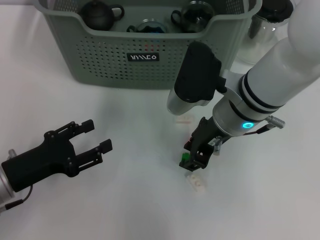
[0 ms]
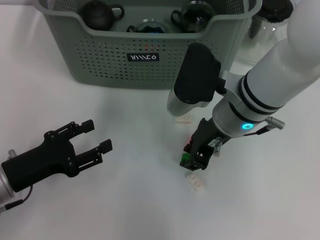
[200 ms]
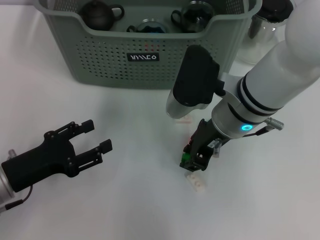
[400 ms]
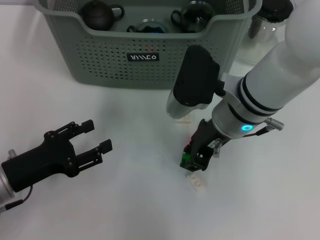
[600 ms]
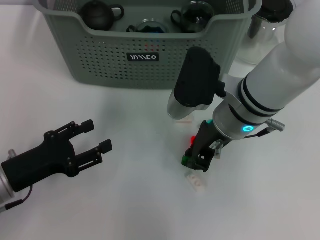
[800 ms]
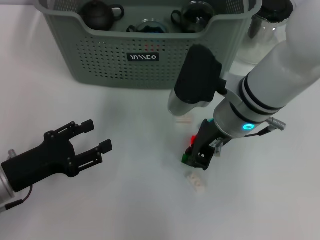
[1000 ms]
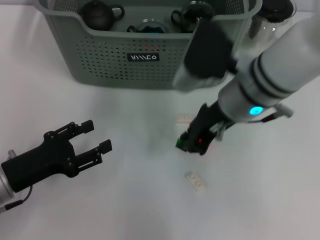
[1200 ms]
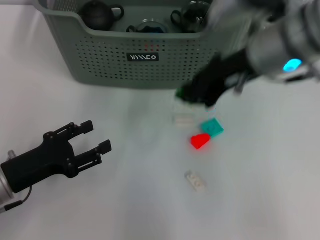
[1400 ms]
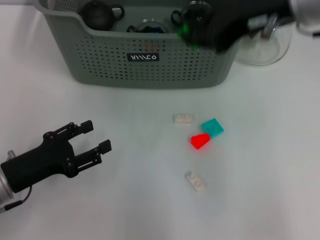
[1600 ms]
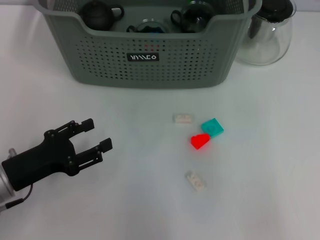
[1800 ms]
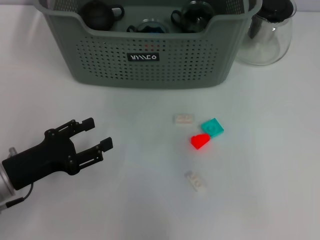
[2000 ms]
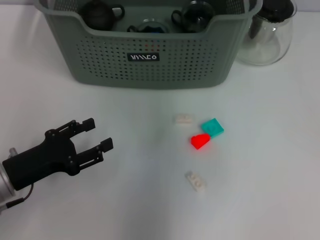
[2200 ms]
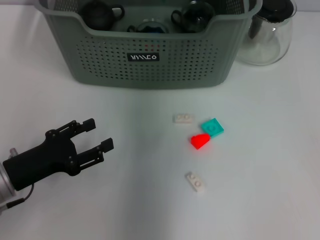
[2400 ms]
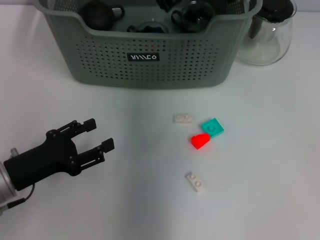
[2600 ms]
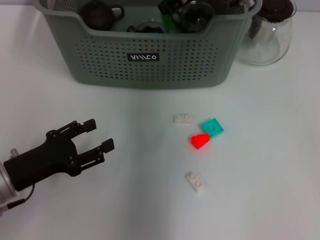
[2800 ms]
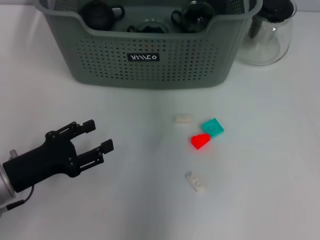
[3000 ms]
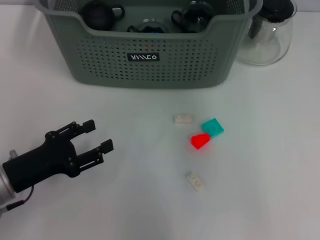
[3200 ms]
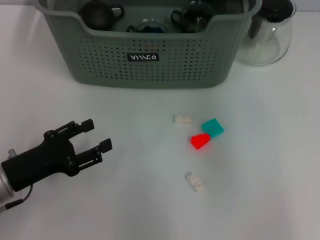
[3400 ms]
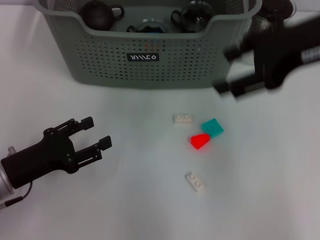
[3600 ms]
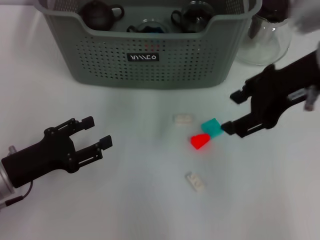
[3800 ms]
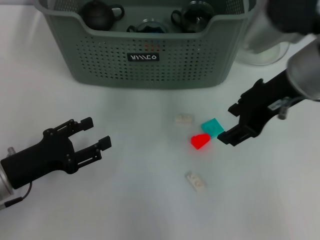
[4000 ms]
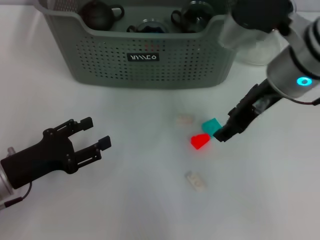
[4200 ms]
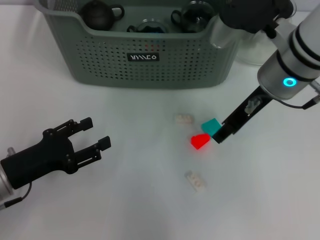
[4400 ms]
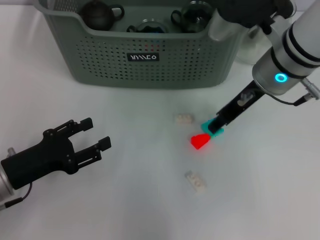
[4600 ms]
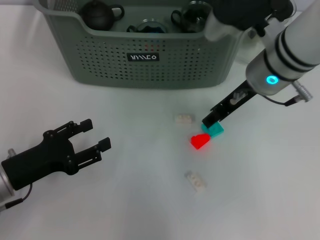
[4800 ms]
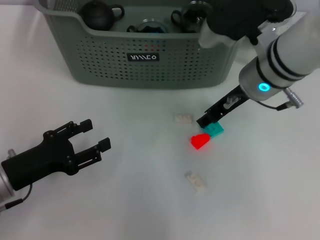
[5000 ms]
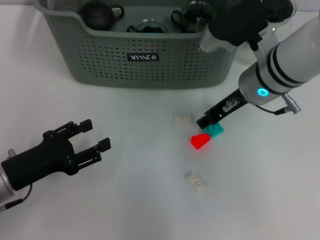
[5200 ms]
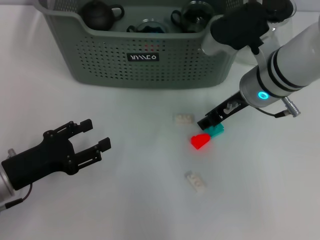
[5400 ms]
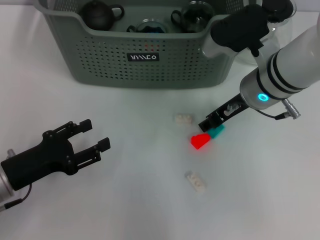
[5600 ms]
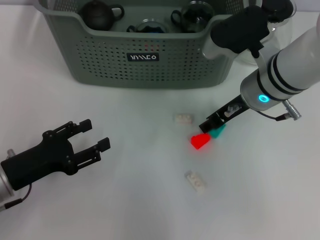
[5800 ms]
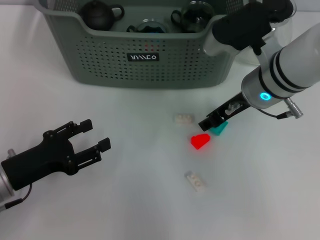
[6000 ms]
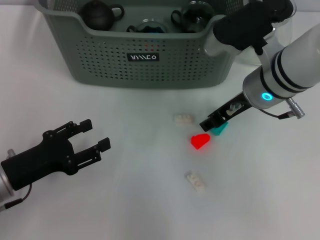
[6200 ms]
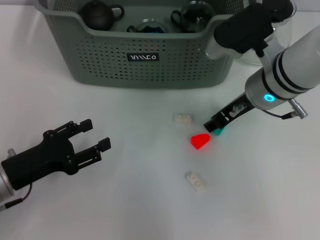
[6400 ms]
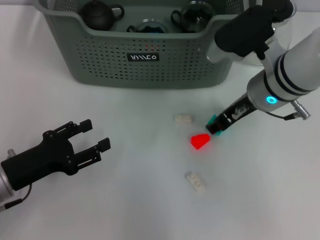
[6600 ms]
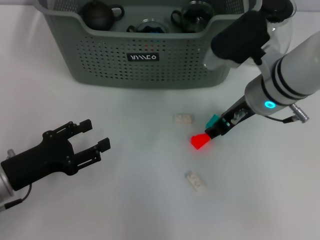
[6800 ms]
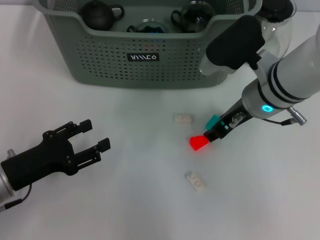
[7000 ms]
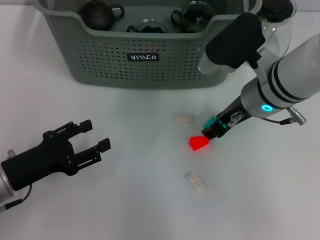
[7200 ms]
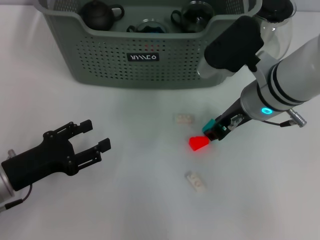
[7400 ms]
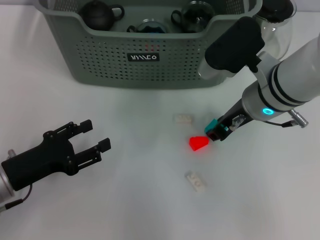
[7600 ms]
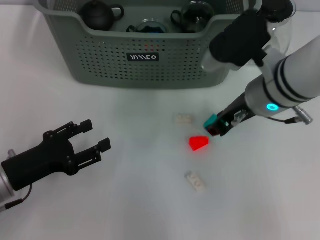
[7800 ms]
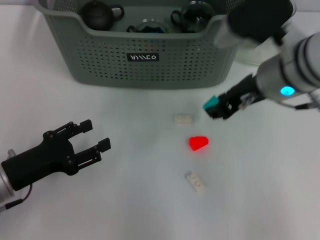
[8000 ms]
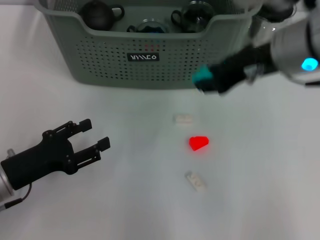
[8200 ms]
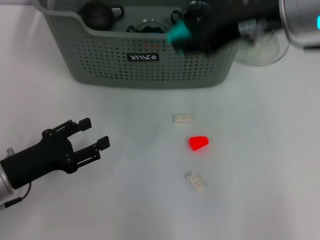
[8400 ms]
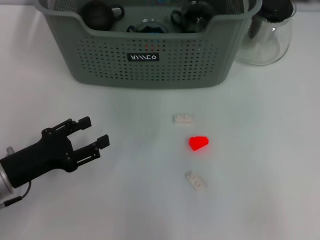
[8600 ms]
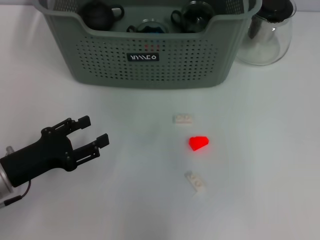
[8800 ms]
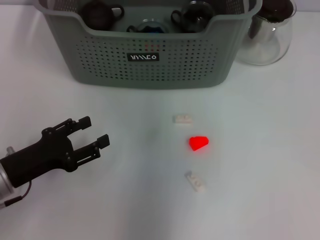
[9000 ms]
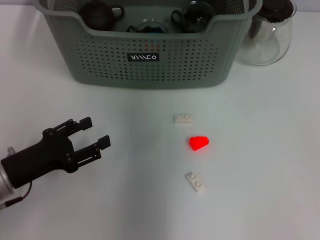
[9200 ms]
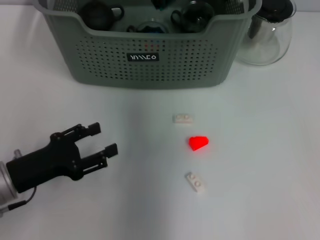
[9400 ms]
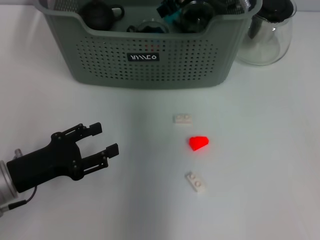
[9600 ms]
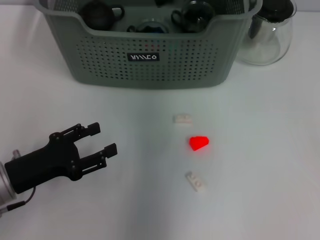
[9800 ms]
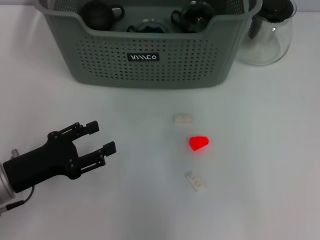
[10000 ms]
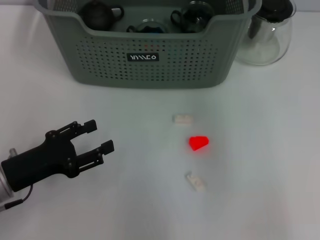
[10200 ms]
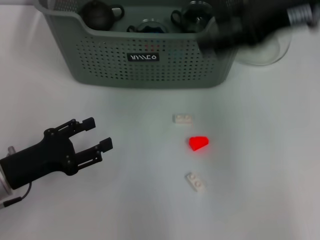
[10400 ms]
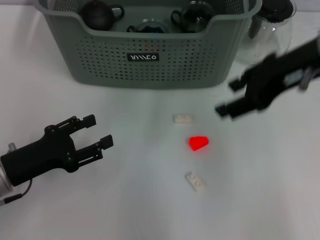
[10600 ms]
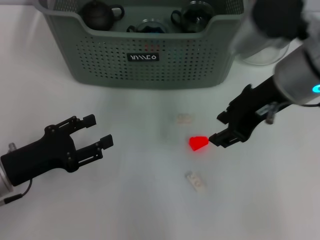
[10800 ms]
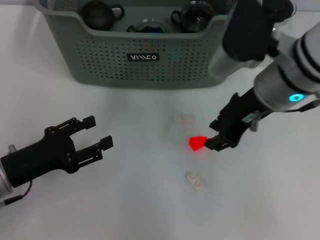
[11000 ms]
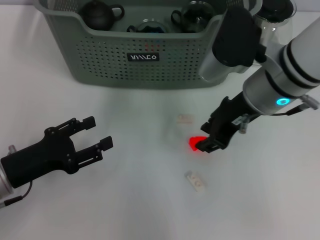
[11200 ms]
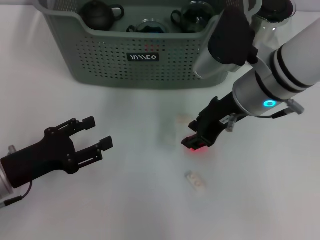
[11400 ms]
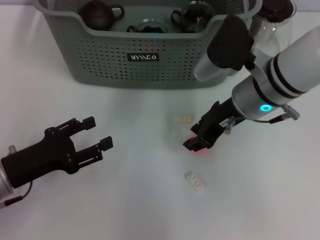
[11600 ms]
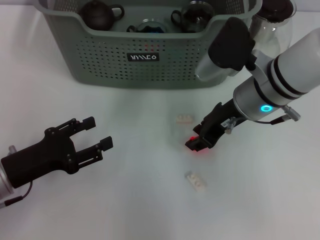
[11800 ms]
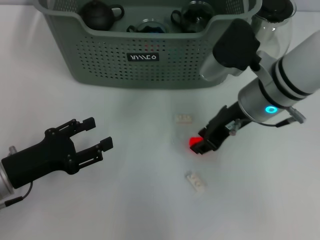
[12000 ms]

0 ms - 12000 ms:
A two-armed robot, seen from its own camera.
Task of the whole recording: pick up the teacup on the table and place it into the storage bin, pick up the block on the table and place it into the storage bin.
Step, 1200 ms - 3400 ms: Place the green block in the storage box with right gripper.
Step, 3600 ms - 7400 ms: Grasp the light blue block with right gripper.
Step, 7600 ms - 9800 ms: Place the light blue block in the storage box with right gripper.
0 ms - 1600 ms: The right gripper travels upward by some 15 cm.
1600 ms - 3000 ms: The right gripper is displaced forward and to the left by approximately 15 cm.
3000 ms - 4400 ms: The right gripper is displaced backward, downward and to the right by approximately 15 cm, and opens its fingers.
4400 ms - 7600 ms: The grippers make only small movements.
7600 ms - 9000 ms: The right gripper goes approximately 20 cm upward, forward and to the left.
9000 ms - 10400 ms: The right gripper heads to the right and backward, covering about 20 cm, and opens up.
10400 ms - 12000 ms: The right gripper moves downward, roughly 15 cm, and closes up.

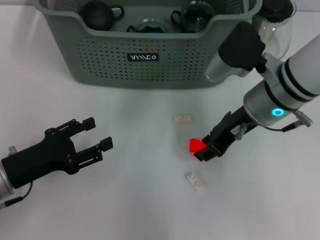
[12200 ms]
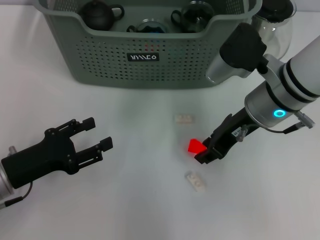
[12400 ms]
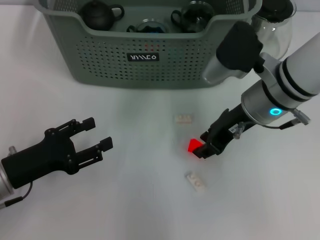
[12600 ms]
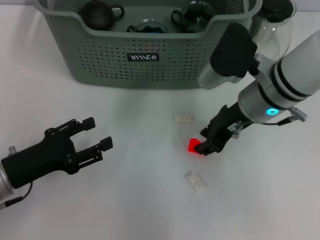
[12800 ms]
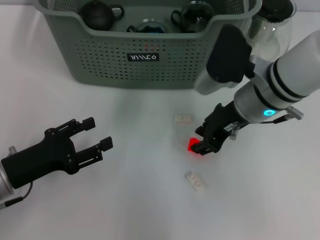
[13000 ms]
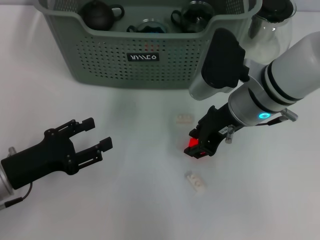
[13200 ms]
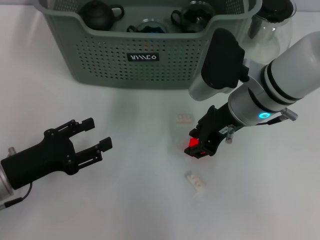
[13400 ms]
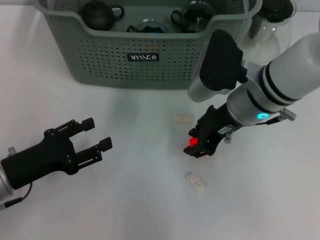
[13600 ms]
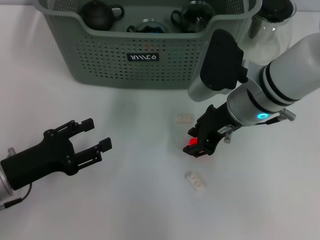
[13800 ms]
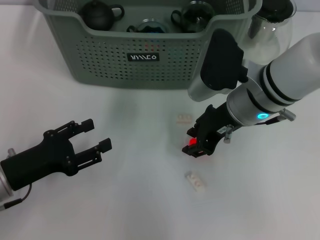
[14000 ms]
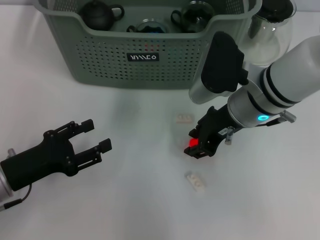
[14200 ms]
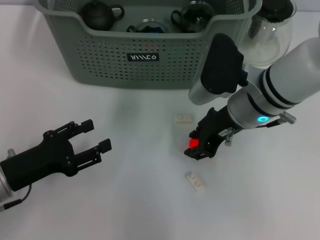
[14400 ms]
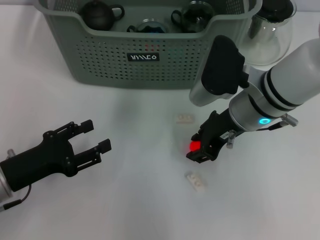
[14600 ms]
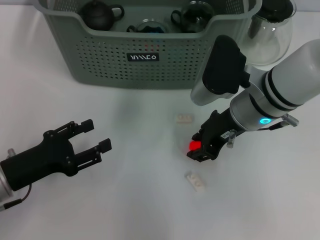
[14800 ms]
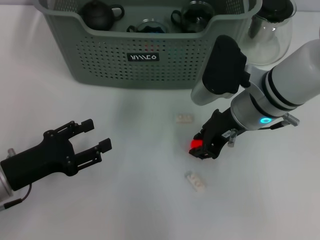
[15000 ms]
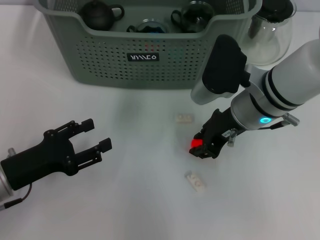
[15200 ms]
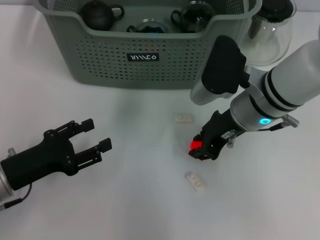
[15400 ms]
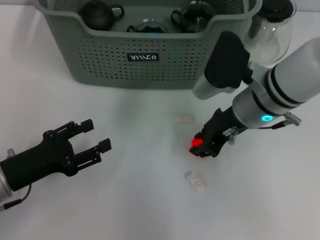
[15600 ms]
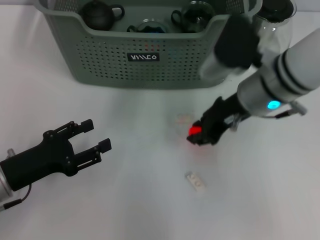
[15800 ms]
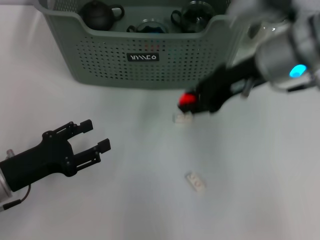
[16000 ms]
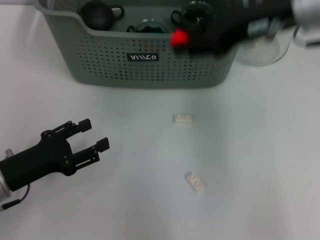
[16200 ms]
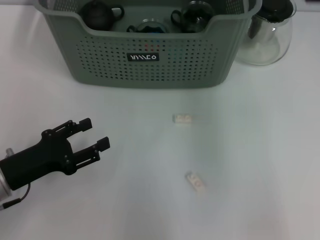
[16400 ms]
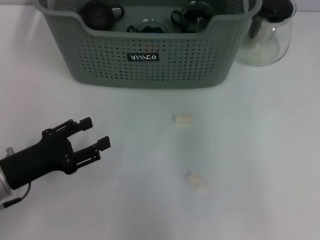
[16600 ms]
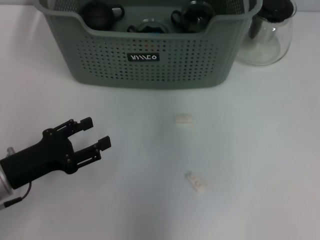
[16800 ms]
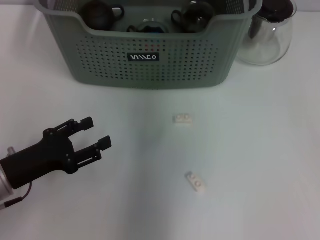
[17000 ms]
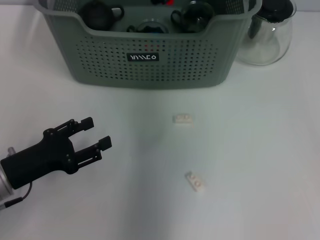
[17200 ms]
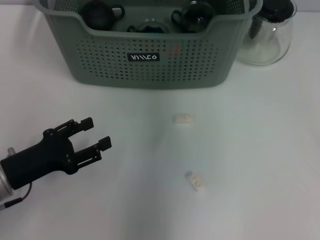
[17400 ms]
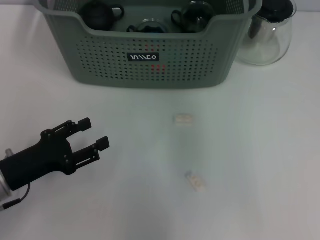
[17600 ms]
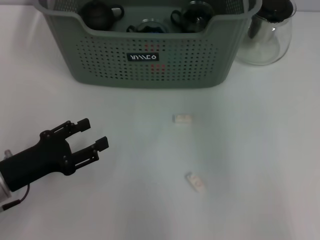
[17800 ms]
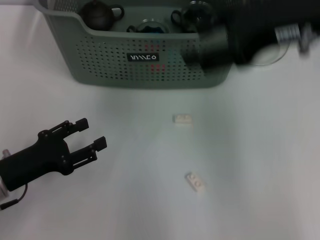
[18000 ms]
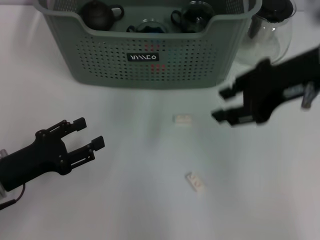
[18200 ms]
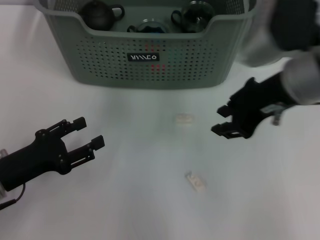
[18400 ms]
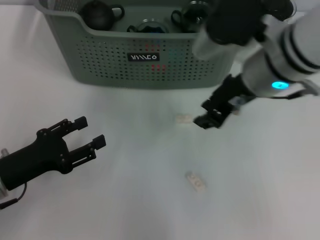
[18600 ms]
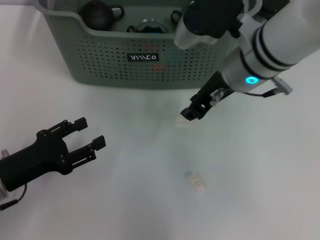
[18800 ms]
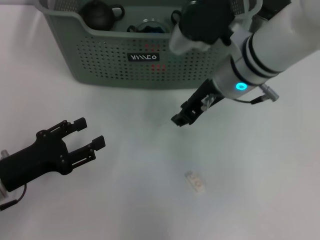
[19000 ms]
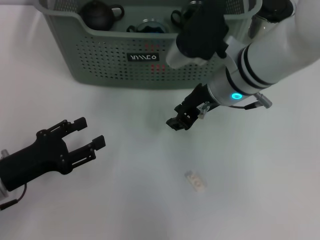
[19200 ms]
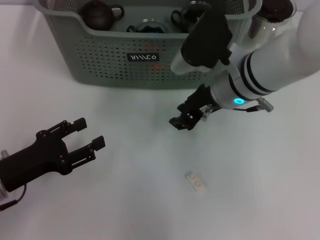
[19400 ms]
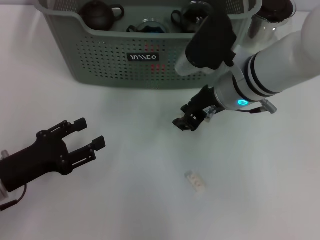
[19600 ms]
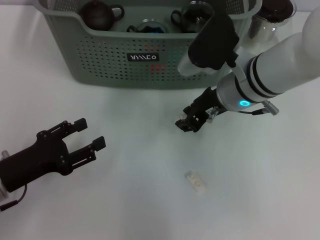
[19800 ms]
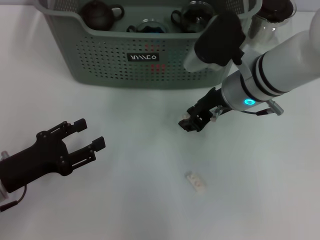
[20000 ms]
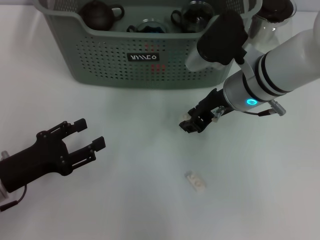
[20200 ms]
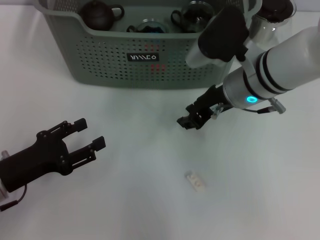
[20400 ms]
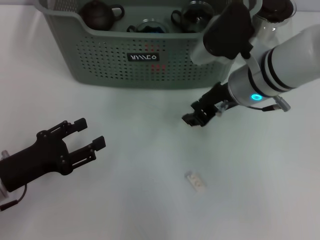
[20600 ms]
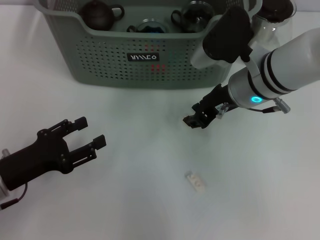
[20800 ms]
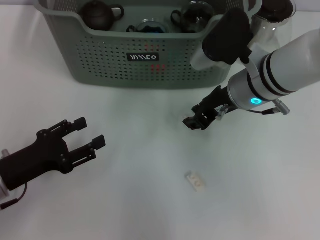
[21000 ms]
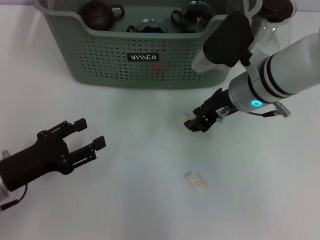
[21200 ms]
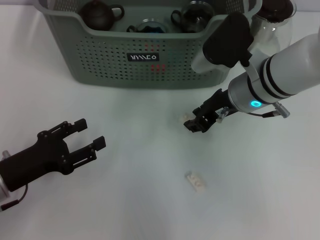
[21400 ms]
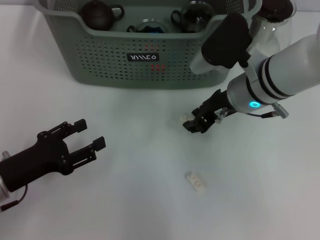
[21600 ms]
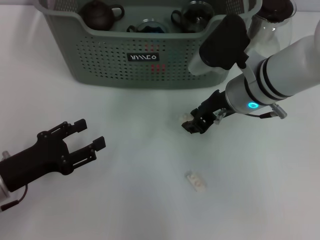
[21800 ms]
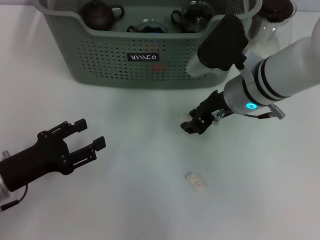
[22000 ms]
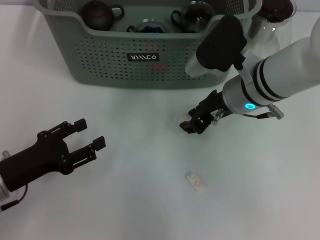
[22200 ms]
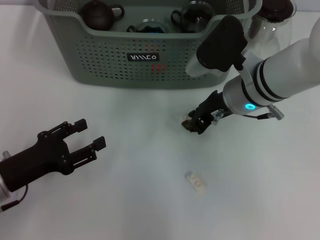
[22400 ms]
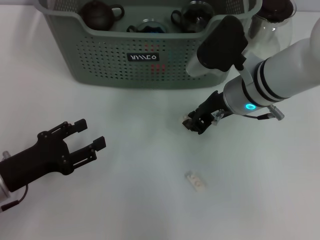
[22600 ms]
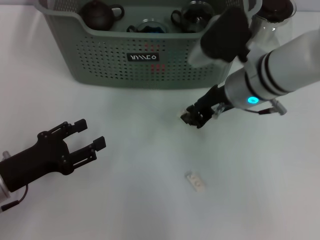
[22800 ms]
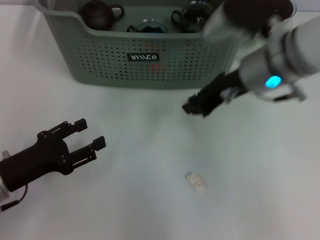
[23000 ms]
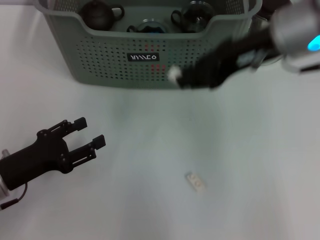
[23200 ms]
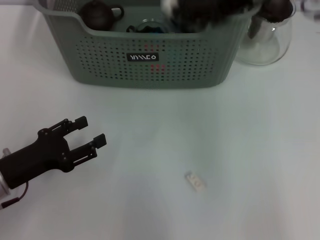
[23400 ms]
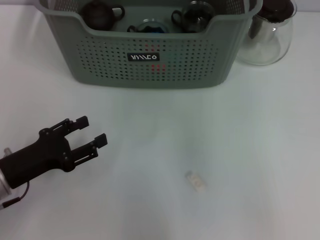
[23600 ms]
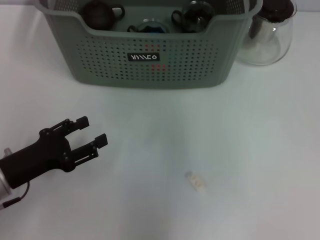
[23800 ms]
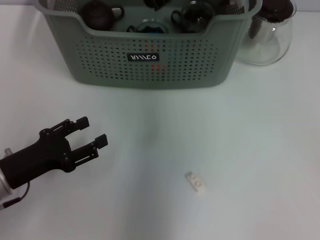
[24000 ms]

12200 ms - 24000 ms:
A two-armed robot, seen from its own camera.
Task of the whole recording: pick up the teacup on the table and place it into the storage bin, pick up the block on the table and place it into the storage bin.
Step, 12200 ms - 15400 ms: Grasp the orange block with right gripper.
Step, 15600 ms - 17400 ms: Place the orange block in the storage box with right gripper.
Step, 17600 ms - 22400 ms: Grasp the white block with right gripper.
12200 ms - 13600 ms: The grippers make only small movements.
13600 ms - 15200 ms: Neither gripper changes place.
15200 ms - 16600 ms: The right gripper travels upward by some 15 cm.
16600 ms - 18200 ms: The right gripper travels backward and to the right by approximately 10 cm, and opens its fingers.
18200 ms - 19600 ms: The right gripper travels downward, to the left and forward by approximately 15 cm.
19600 ms - 21000 ms: The grippers make only small movements.
21000 ms - 22600 ms: The two grippers keep their place.
22600 ms - 24000 ms: The right gripper is displaced upward, forward and to the left by roughly 15 cm.
